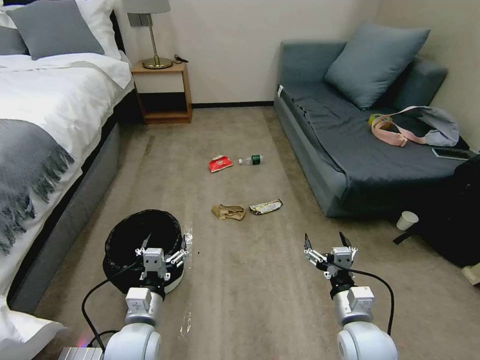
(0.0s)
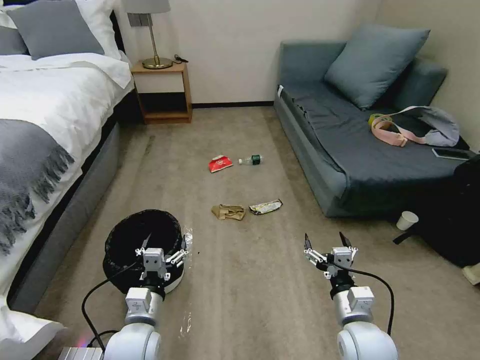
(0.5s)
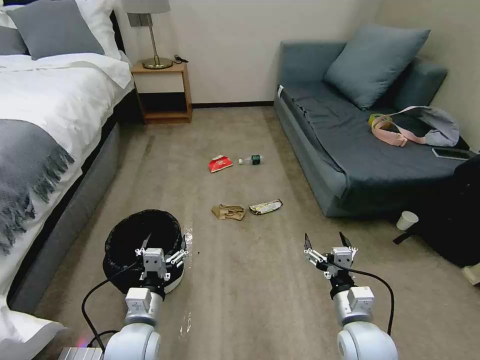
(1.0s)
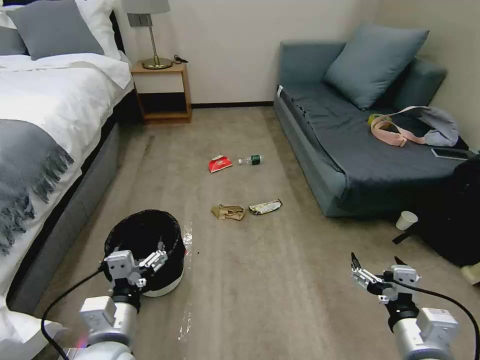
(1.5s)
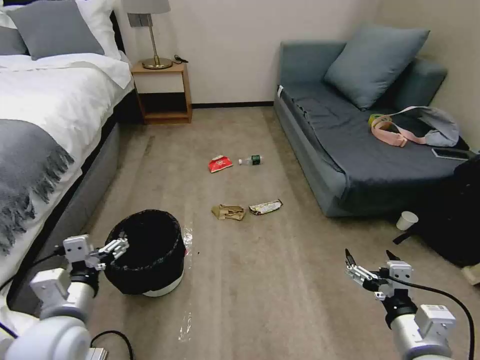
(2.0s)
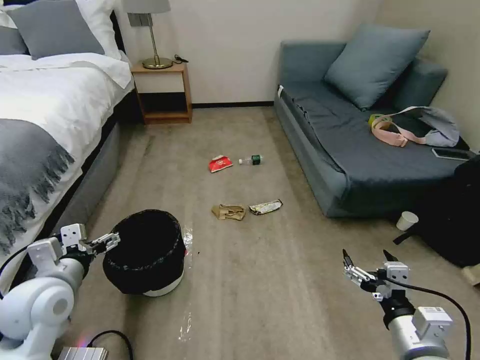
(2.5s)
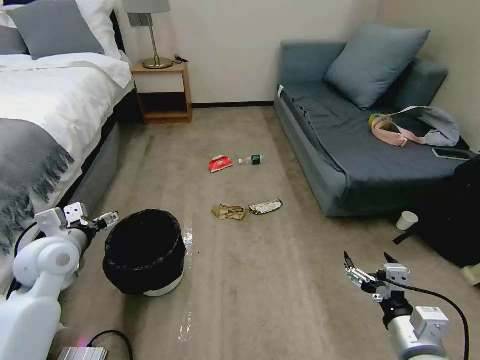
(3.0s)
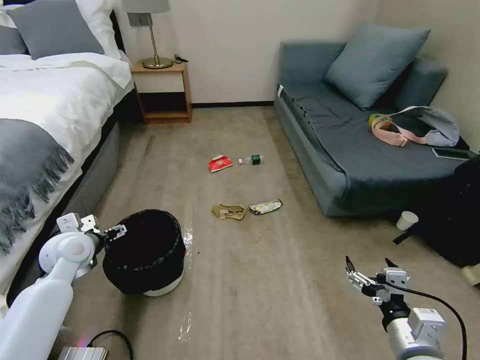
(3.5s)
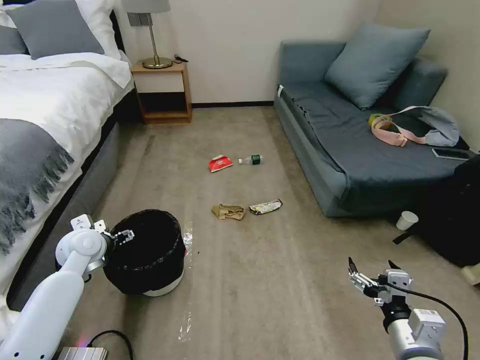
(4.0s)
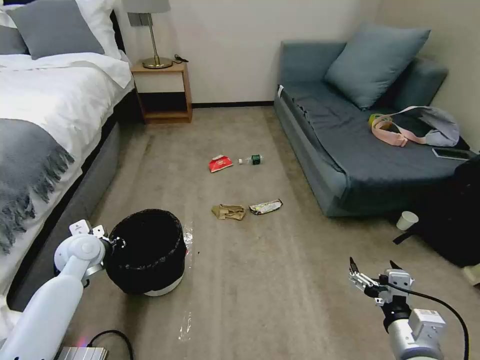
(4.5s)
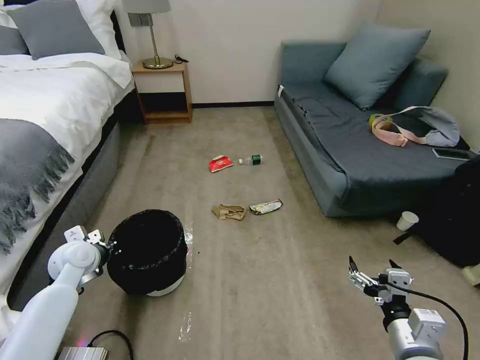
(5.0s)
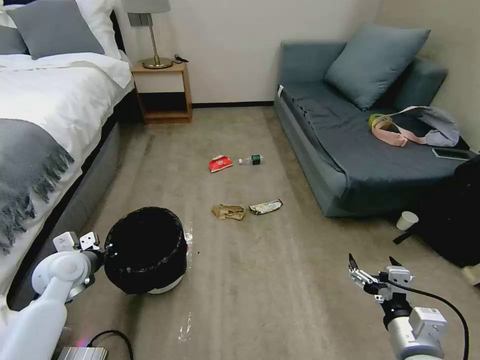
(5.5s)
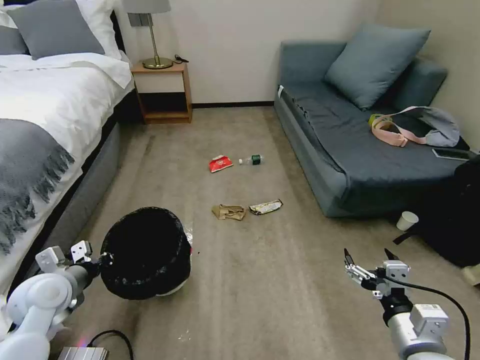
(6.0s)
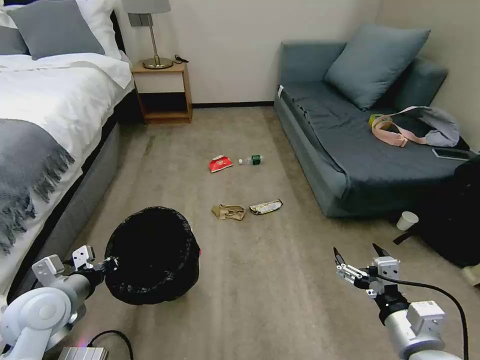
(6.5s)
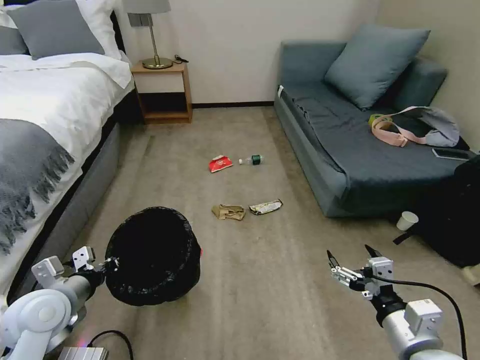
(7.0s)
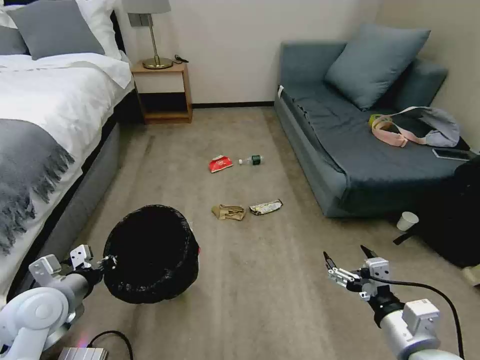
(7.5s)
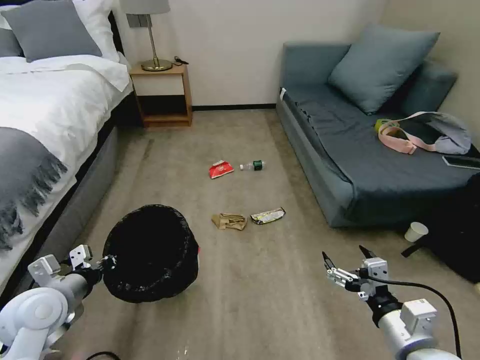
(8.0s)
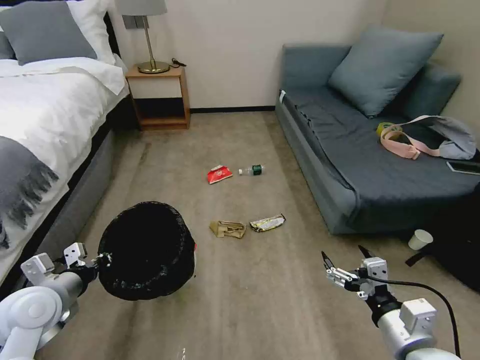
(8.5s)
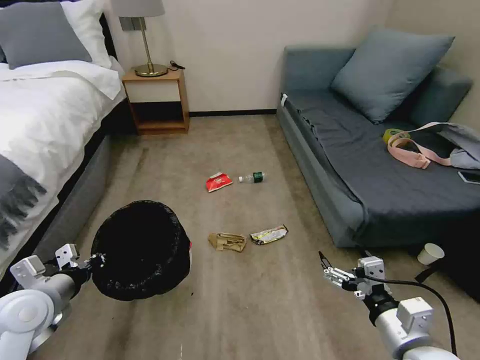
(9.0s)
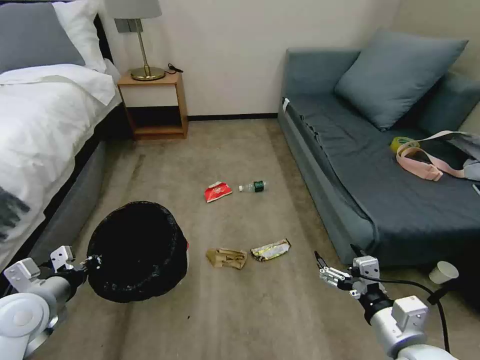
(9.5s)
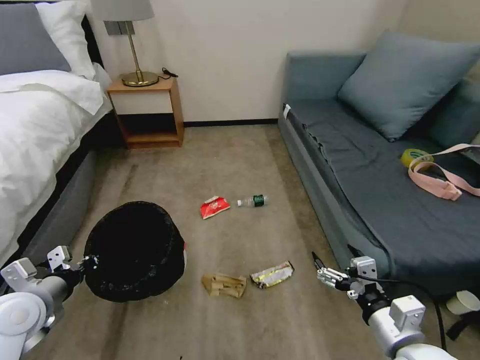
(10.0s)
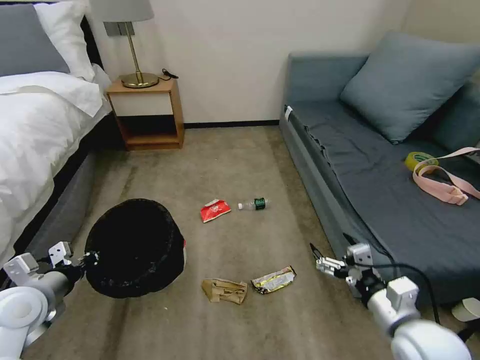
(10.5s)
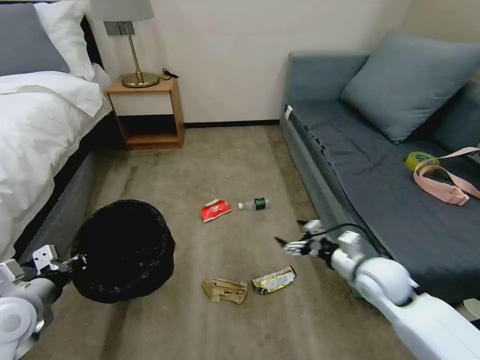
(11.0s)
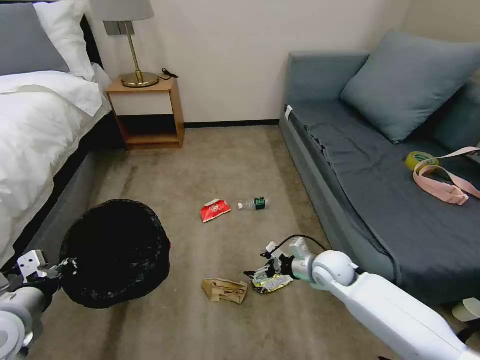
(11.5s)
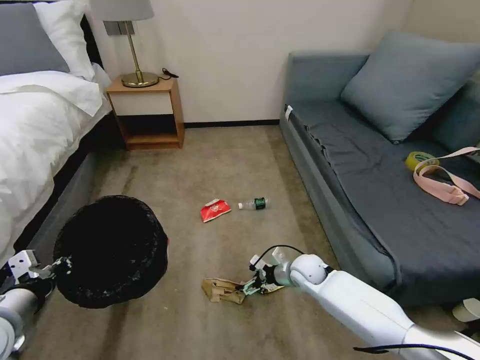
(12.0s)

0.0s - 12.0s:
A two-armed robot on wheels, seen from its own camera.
Task of the whole recording: Pick up the trash bin, then pick up the garbage on the floor and place it into the trash bin.
2.0s - 4.0s: The left gripper shifts roughly 20 cm forward.
4.0s - 6.0s: The left gripper shifts approximately 10 cm backward, and closes.
10.0s - 12.0s: The right gripper shifts some 30 cm forward and downward. The left gripper changes place by roughly 5 cm.

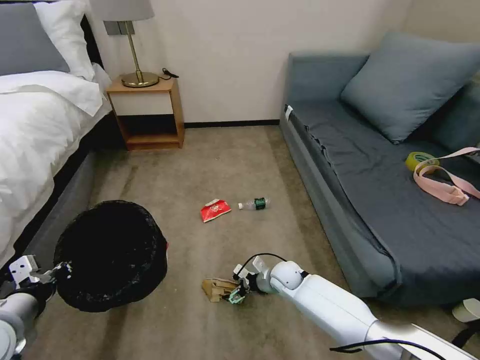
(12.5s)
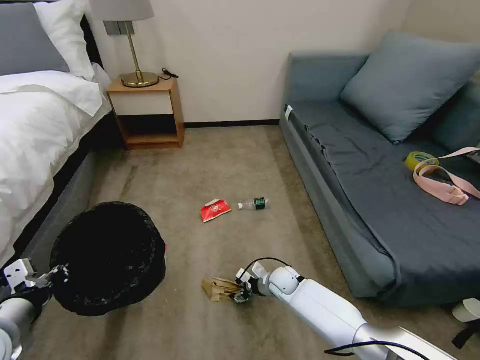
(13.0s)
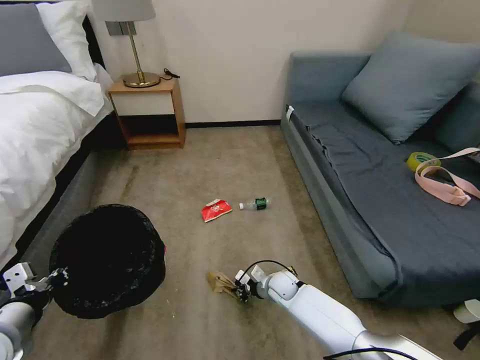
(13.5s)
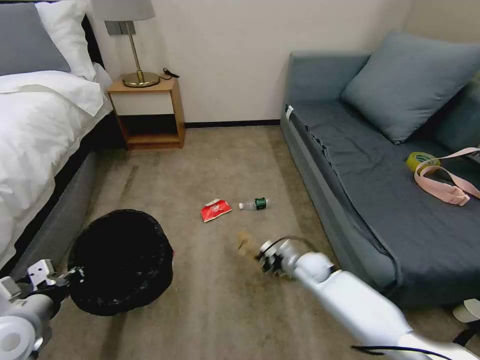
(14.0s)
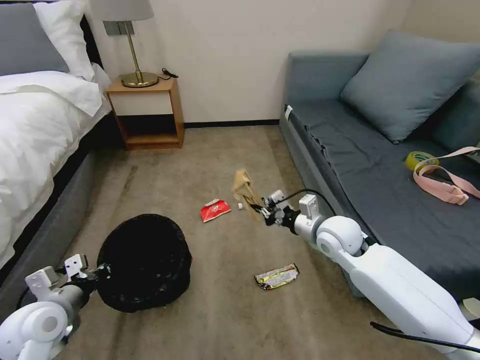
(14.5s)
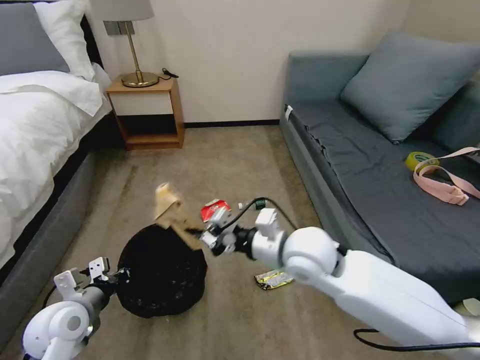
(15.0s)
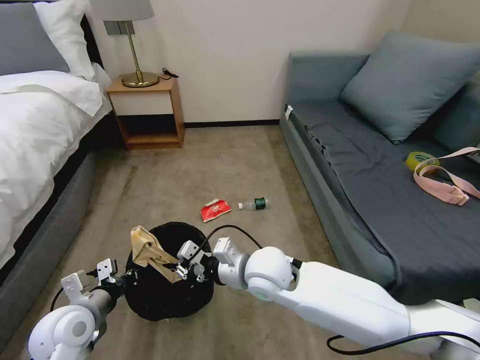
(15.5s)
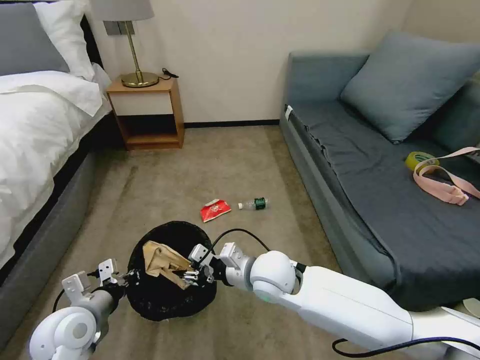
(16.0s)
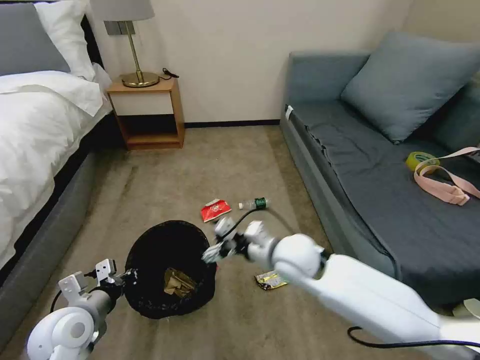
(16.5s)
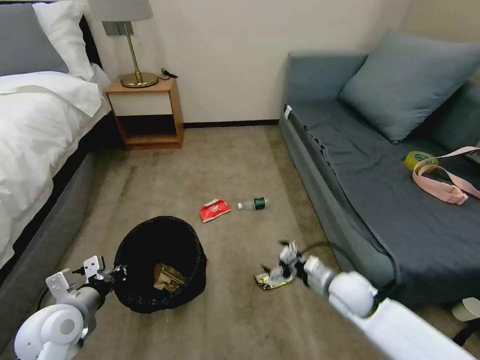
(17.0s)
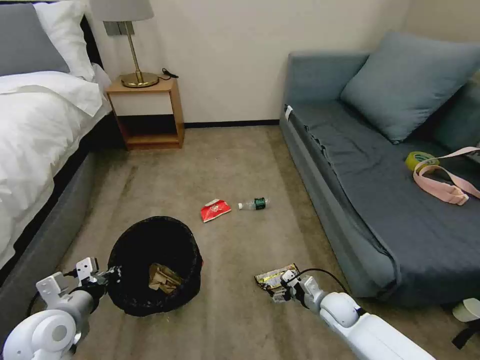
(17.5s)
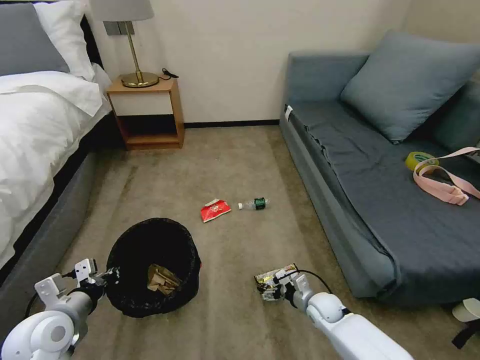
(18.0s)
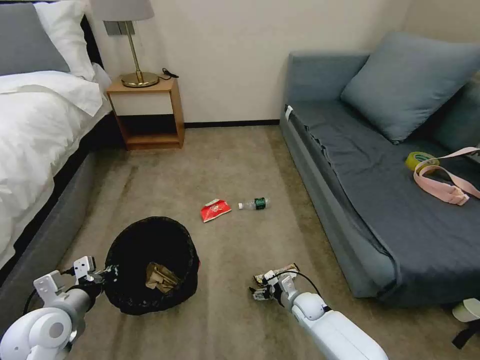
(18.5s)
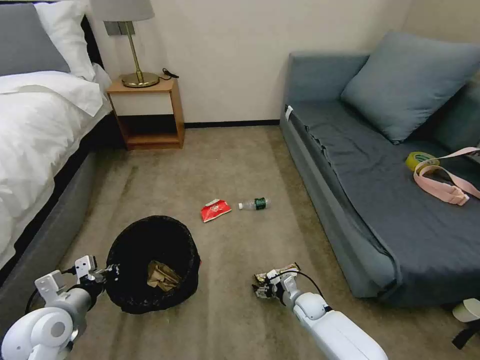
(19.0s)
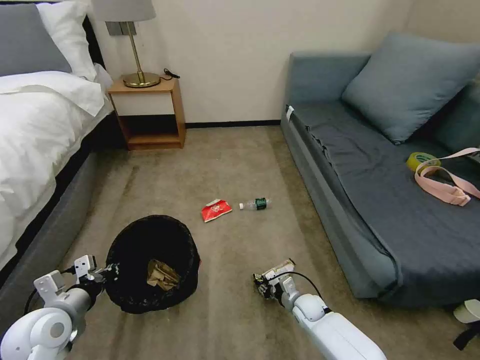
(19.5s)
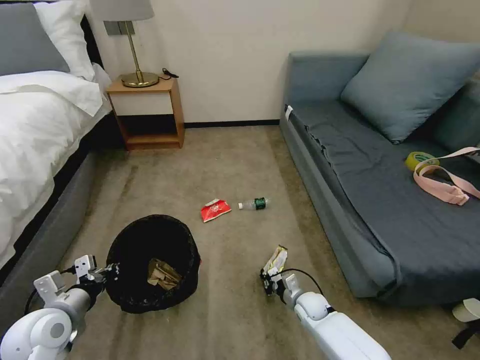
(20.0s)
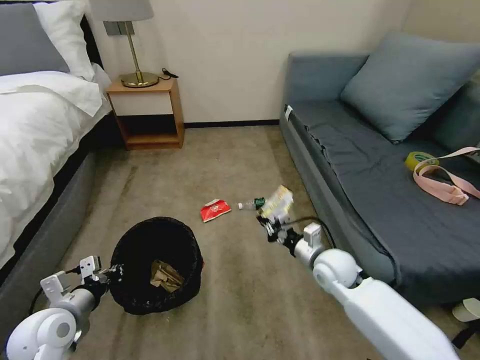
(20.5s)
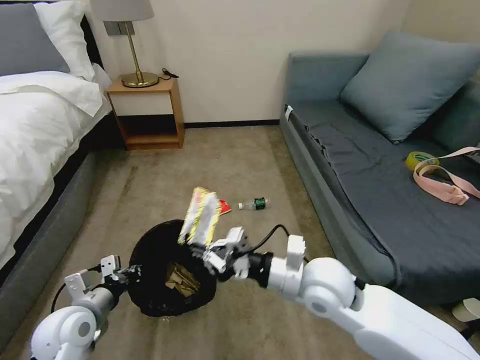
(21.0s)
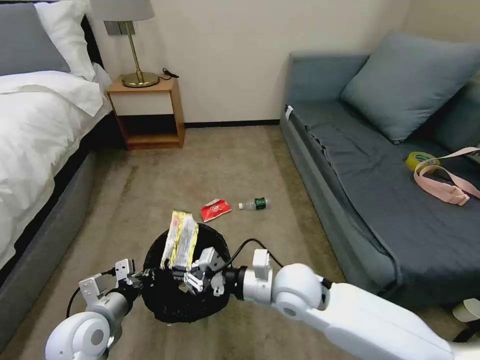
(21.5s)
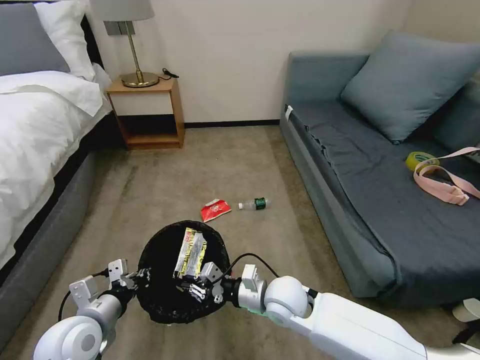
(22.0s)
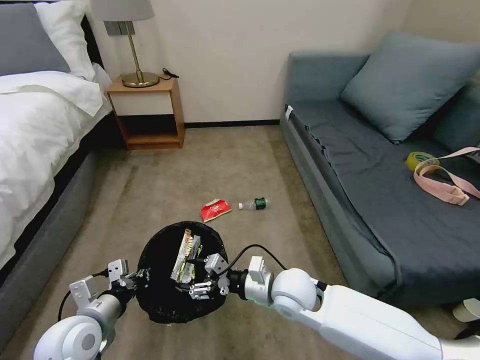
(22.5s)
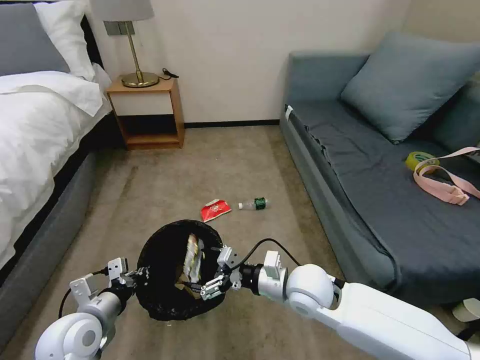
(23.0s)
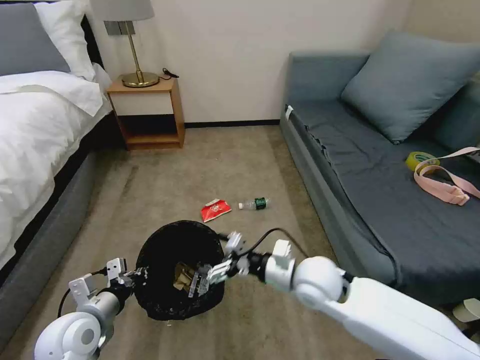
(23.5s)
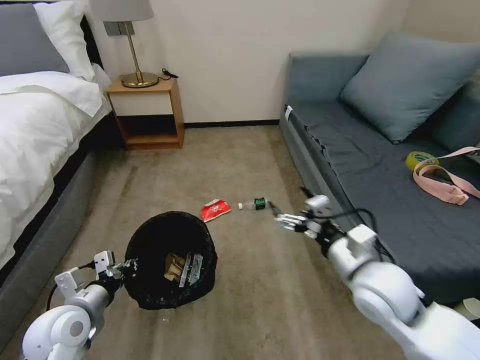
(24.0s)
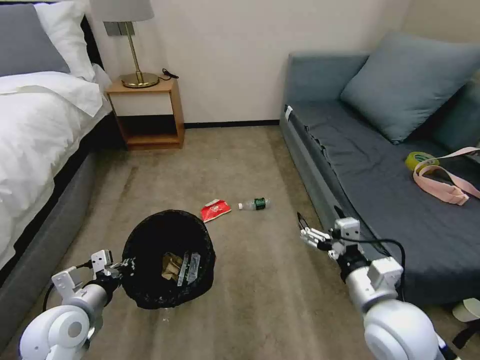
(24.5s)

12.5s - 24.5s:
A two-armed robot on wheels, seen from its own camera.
Task of the whole recording: Pick up the trash bin, then pick up the garbage on the floor and place it into the trash bin.
12.5s - 14.5s: The right gripper is displaced upward by about 25 cm, and closes its fingers. Meanwhile the left gripper is displaced downward by some 5 cm.
14.5s - 16.5s: The right gripper moves to the left and backward, roughly 10 cm, and opens its fingers.
16.5s - 18.5s: The right gripper goes about 30 cm downward.
18.5s - 20.5s: The right gripper shifts approximately 20 cm upward, and closes its fingers.
20.5s - 22.5s: The left gripper goes some 5 cm to the right, while the right gripper moves to the left and backward, about 15 cm, and opens up.
22.5s - 24.5s: The right gripper goes approximately 20 cm to the right, backward and upward.

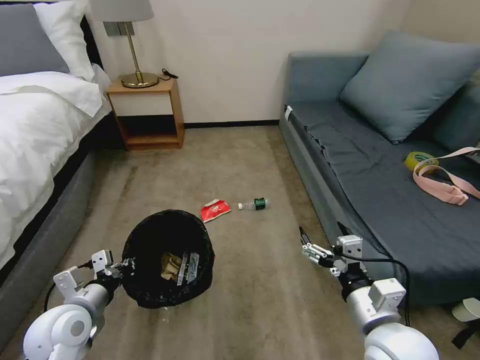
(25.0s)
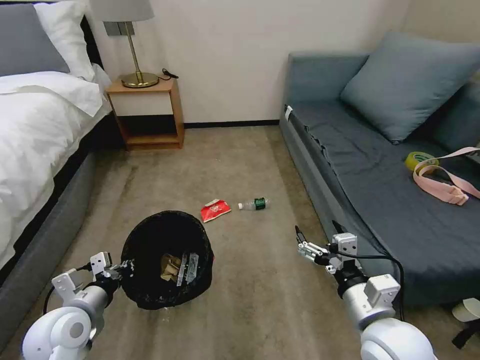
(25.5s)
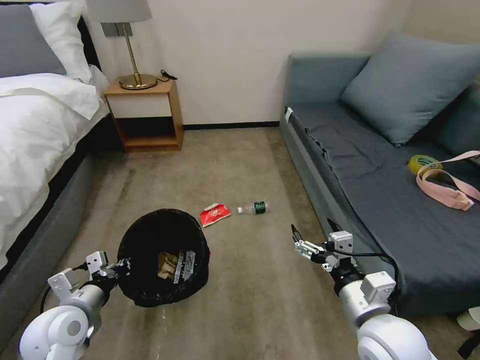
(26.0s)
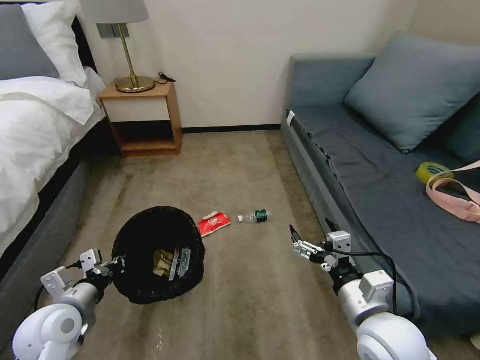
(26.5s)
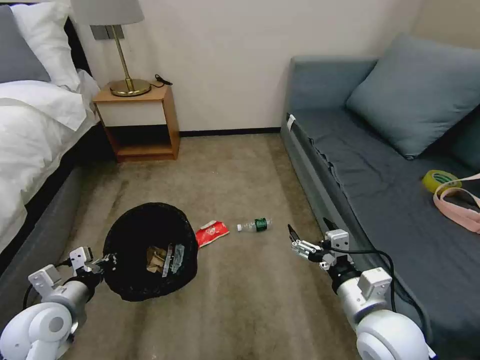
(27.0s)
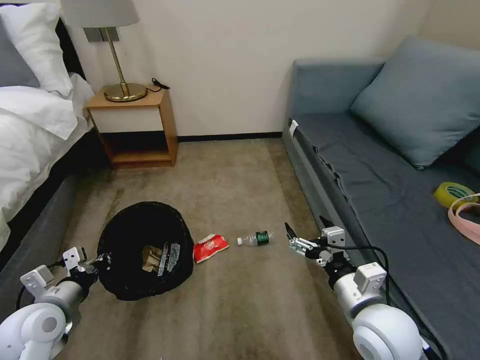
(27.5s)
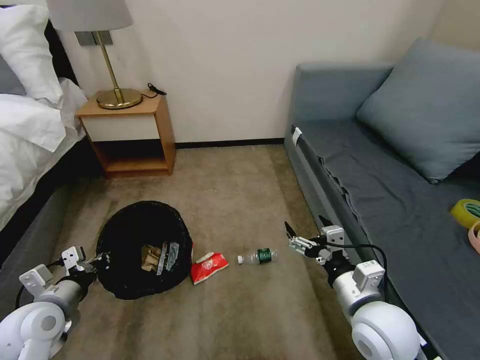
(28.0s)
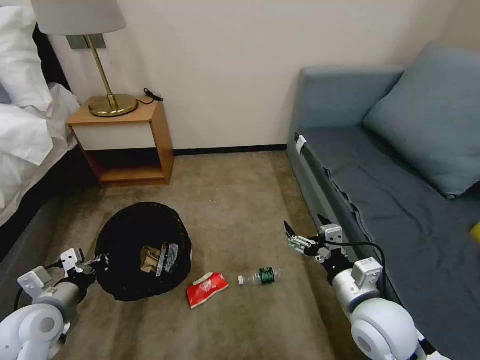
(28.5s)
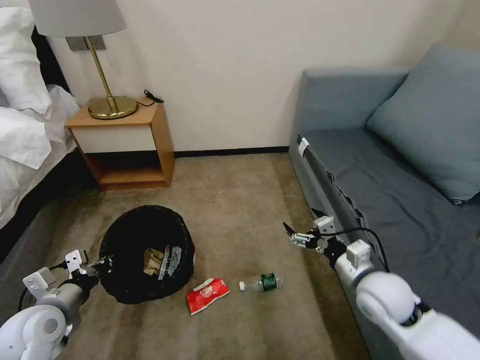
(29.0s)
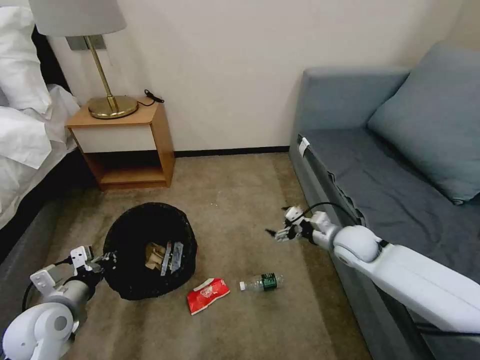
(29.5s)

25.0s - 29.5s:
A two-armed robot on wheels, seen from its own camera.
Task of the whole recording: Pick up the trash bin, then pick up the garbage on the floor and place it into the trash bin.
27.0s - 29.5s: The right gripper travels forward by about 20 cm.
